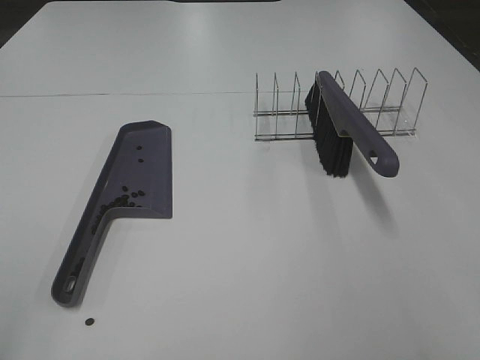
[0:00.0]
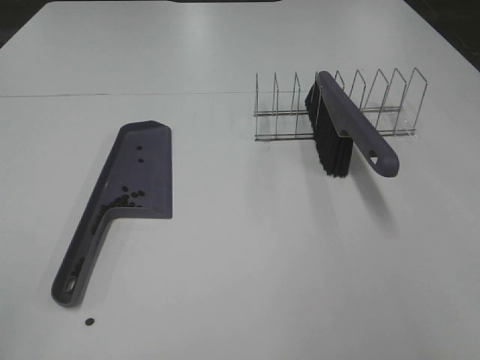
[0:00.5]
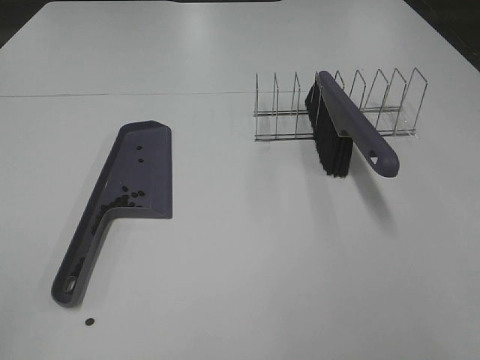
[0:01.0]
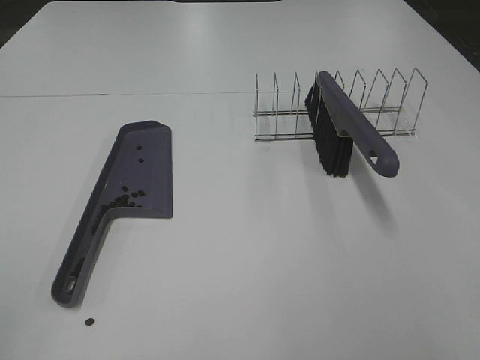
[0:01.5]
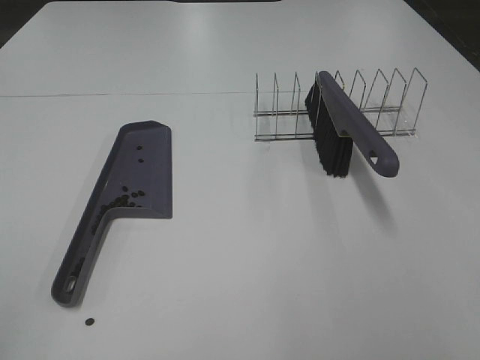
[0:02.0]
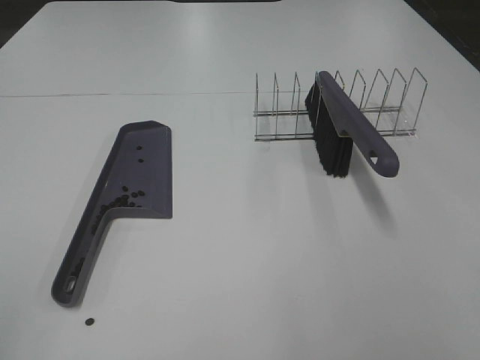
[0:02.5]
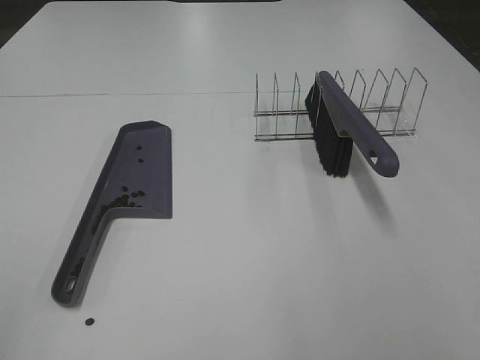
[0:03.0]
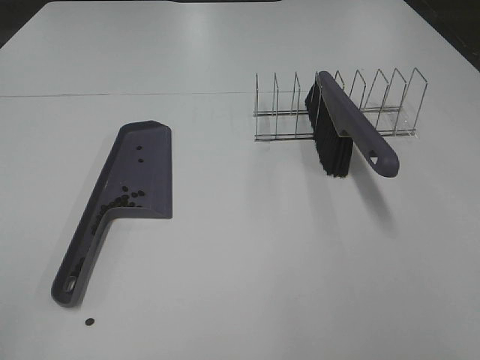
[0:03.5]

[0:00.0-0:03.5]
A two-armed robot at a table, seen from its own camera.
Task of the whole recording: Sweep Coffee Bean.
0:02.0 to 0:03.5: Both grippers stay about where they are.

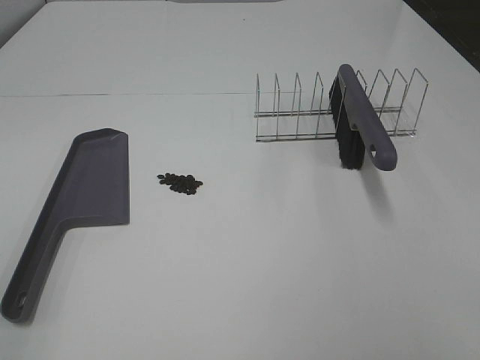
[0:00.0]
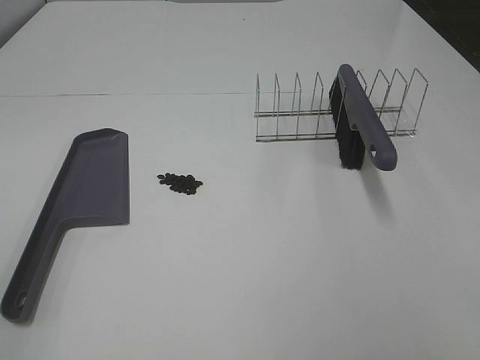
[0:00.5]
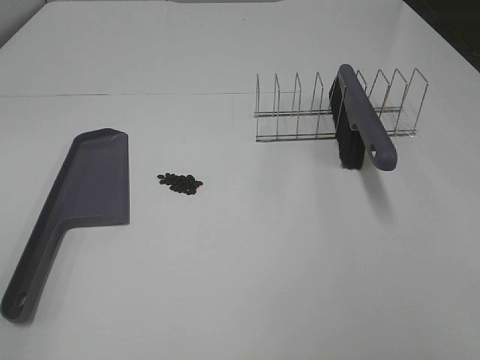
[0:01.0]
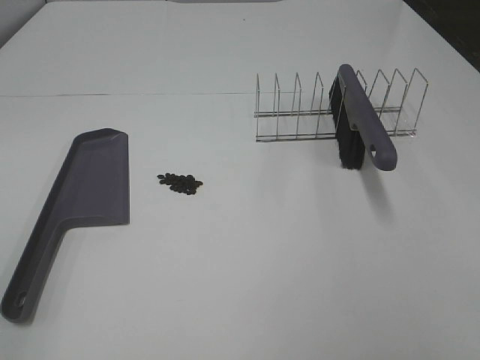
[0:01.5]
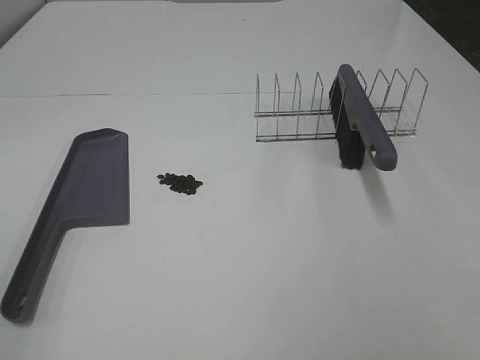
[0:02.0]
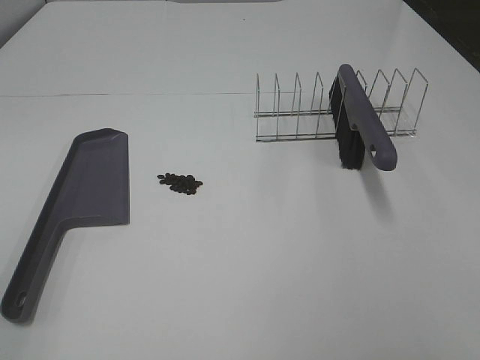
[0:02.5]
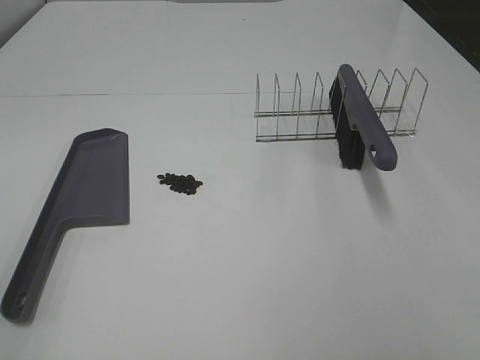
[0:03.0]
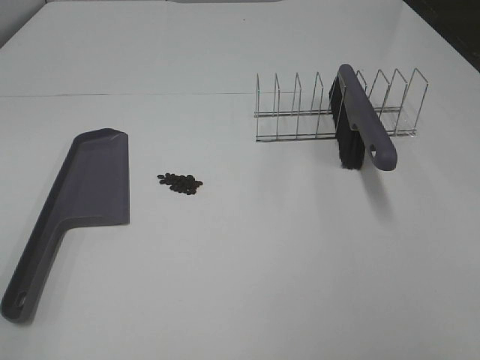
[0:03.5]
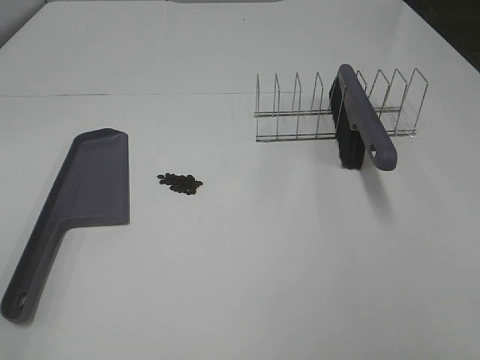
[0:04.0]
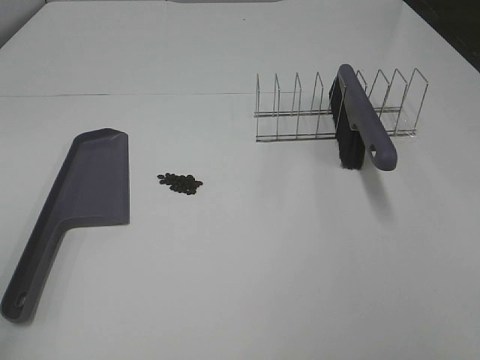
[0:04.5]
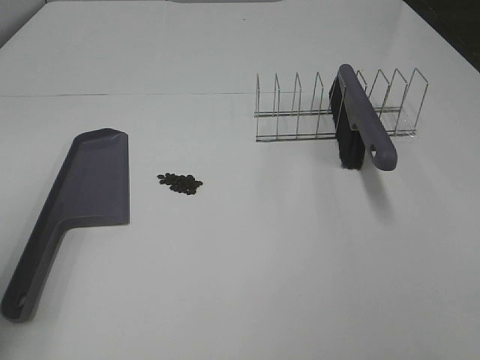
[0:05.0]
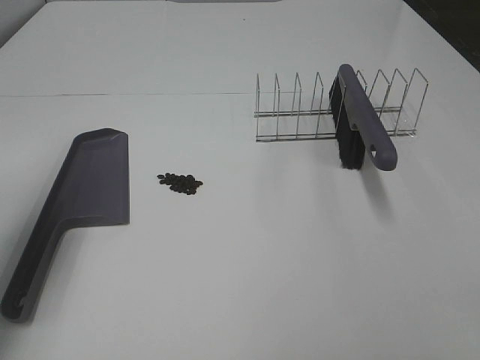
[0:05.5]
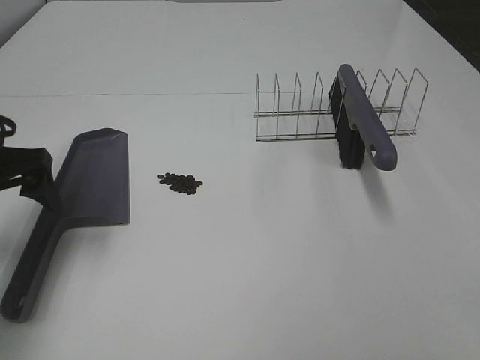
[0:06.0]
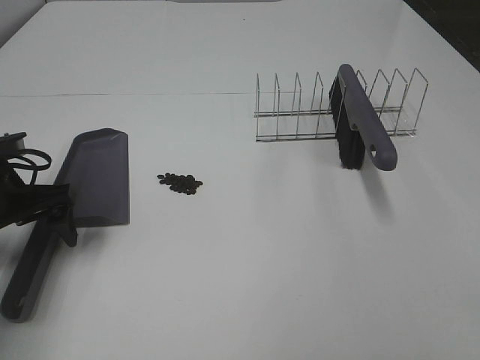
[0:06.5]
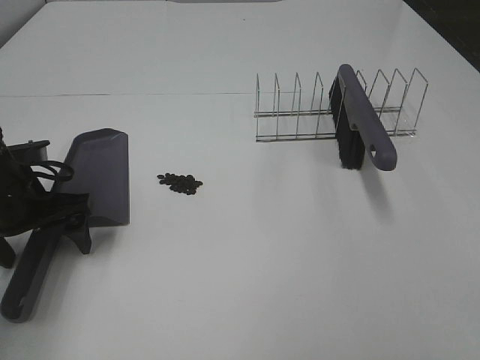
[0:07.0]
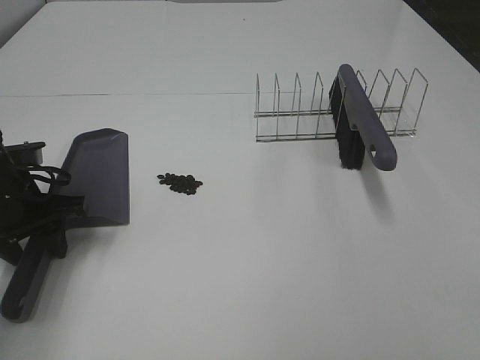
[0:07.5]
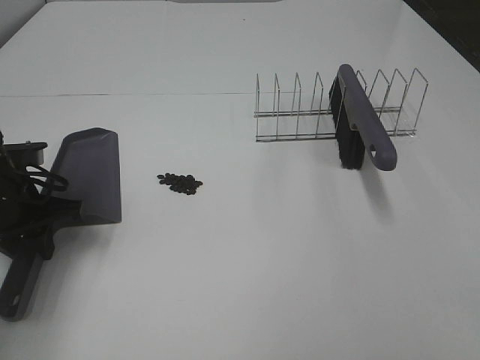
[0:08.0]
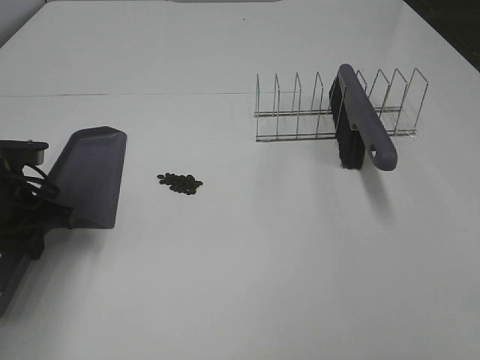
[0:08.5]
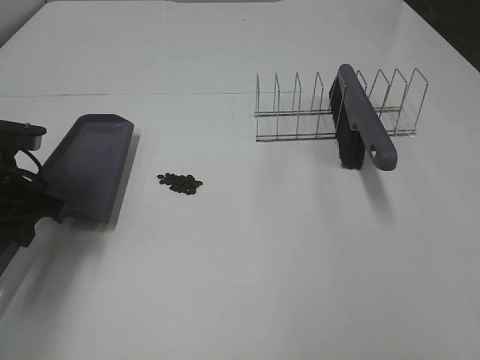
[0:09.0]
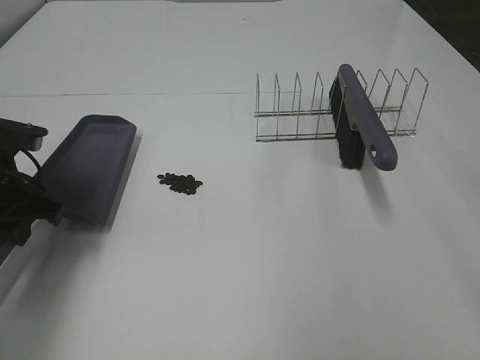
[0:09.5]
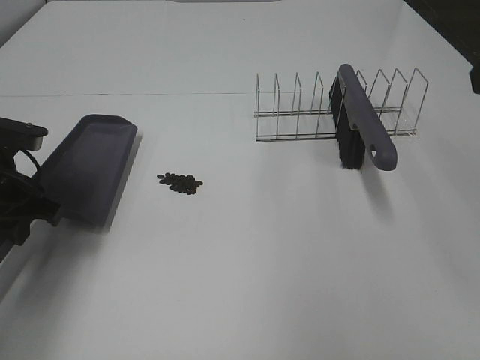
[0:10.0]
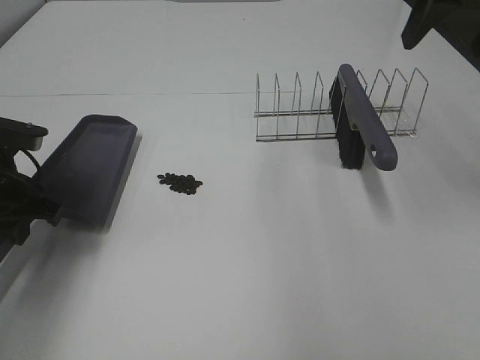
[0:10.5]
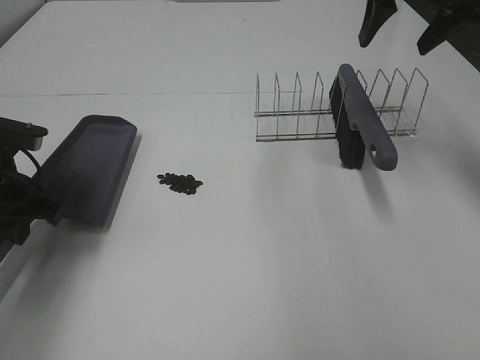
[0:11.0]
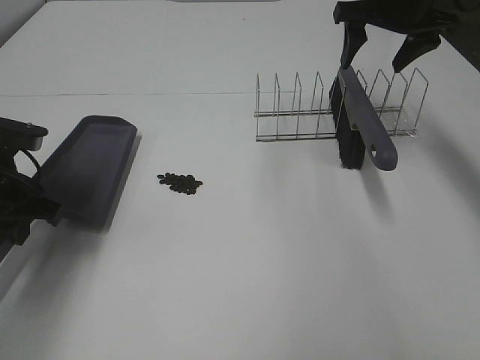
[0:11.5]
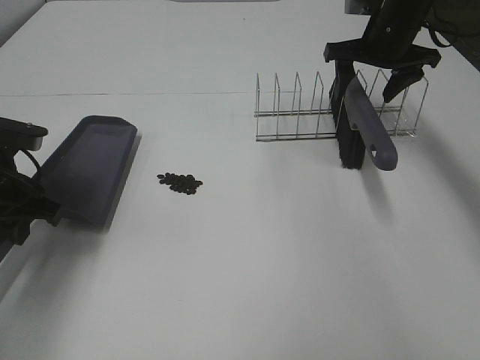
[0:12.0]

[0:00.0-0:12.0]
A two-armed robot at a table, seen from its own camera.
Task of the whole recording: Sweep Coffee Bean.
Step, 0:00.0 to 0:07.5: Left hand: grab the dustpan.
0:00.0 to 0:04.0: Neither gripper changes place.
0:04.0 to 0:06.0: The left gripper shifts about 30 cm forward.
0:06.0 to 0:08.0: The left gripper goes roughly 10 cm downward, and closes.
0:10.0 to 0:12.0: The right gripper shifts about 35 cm forward and downward.

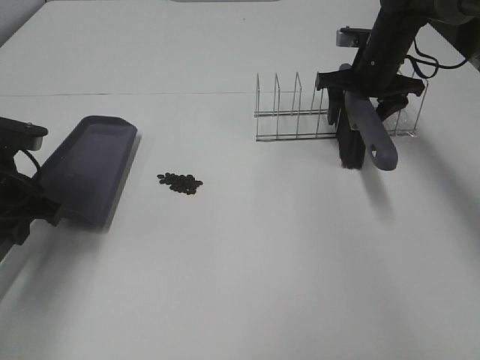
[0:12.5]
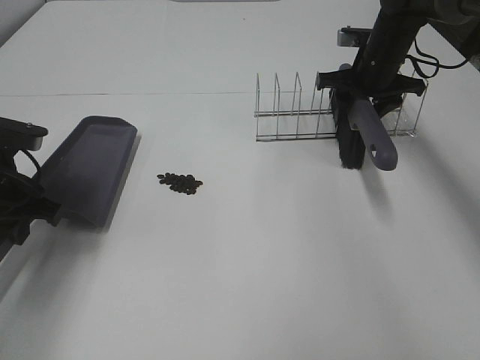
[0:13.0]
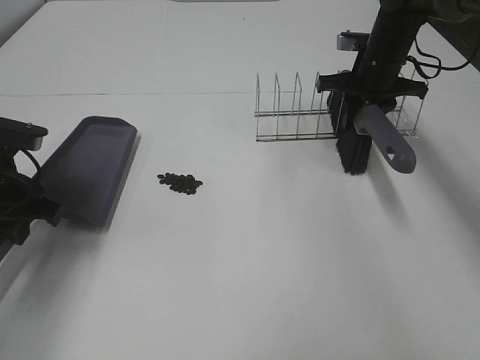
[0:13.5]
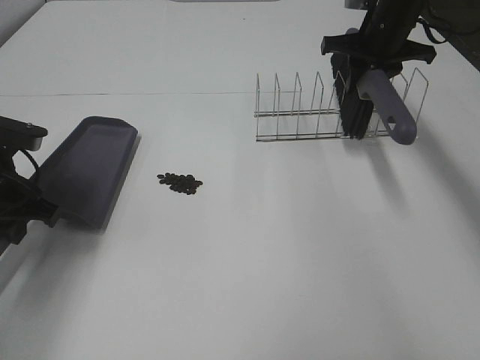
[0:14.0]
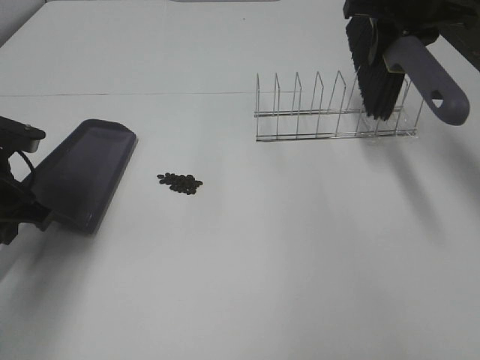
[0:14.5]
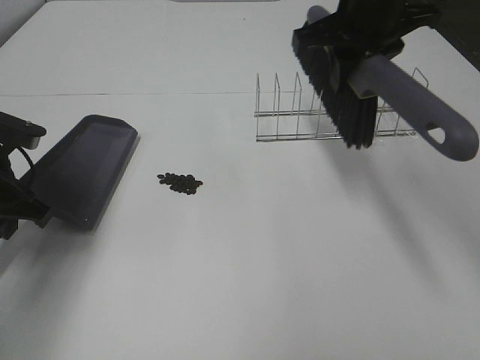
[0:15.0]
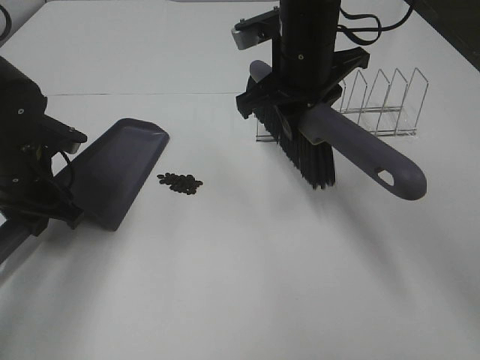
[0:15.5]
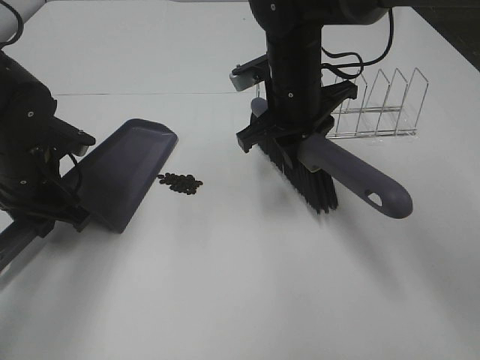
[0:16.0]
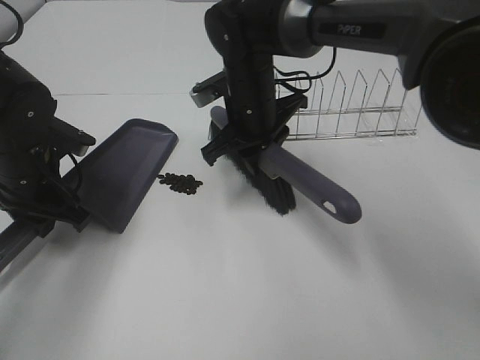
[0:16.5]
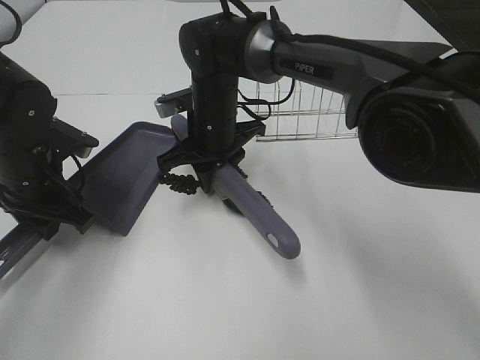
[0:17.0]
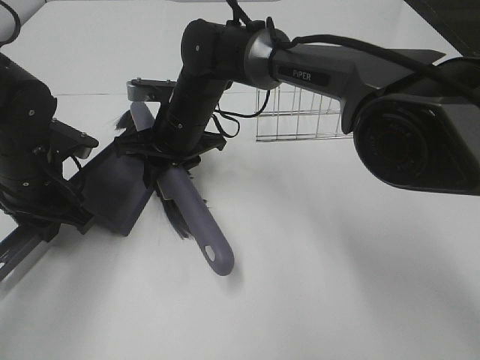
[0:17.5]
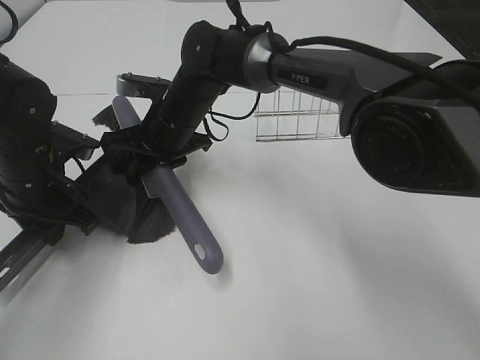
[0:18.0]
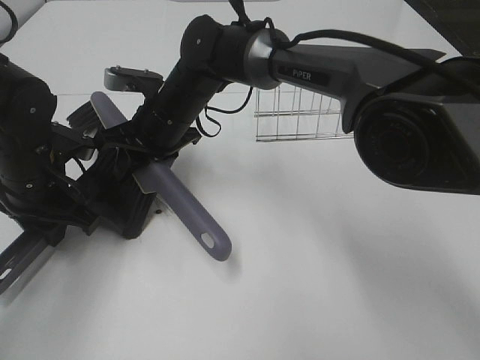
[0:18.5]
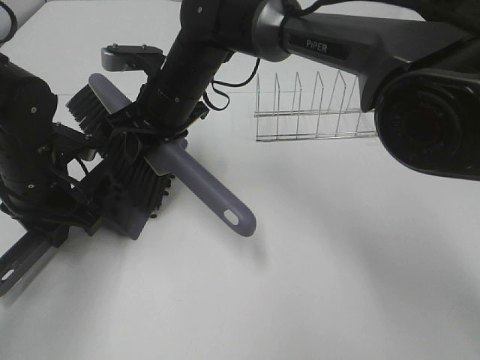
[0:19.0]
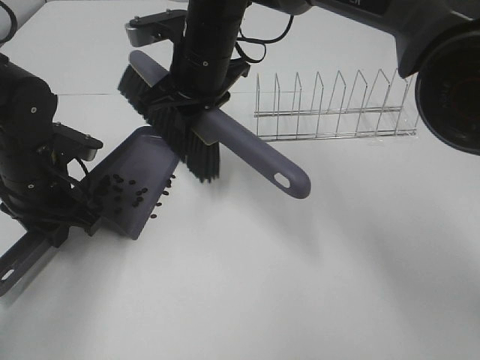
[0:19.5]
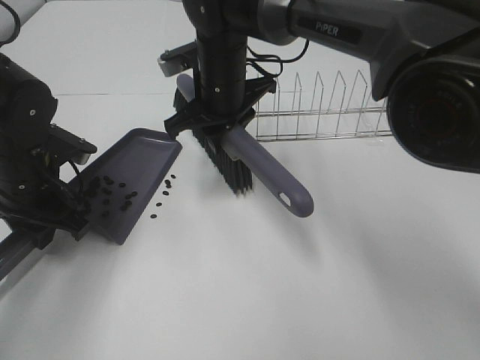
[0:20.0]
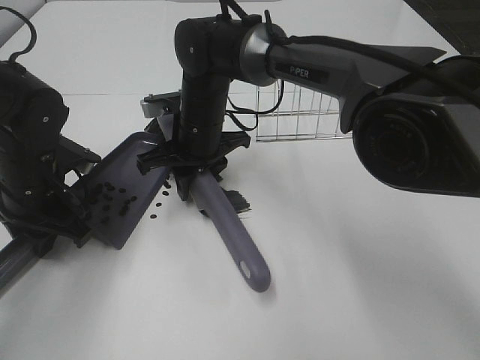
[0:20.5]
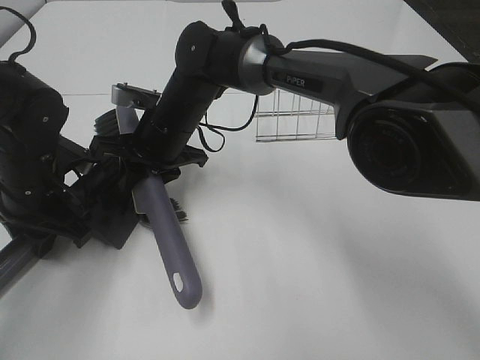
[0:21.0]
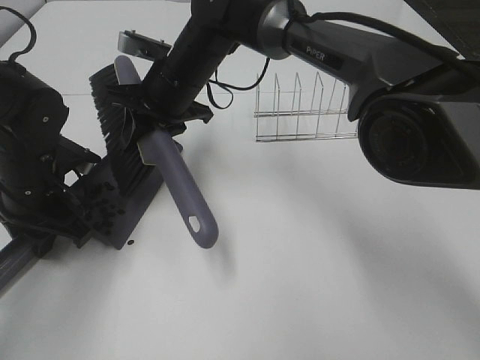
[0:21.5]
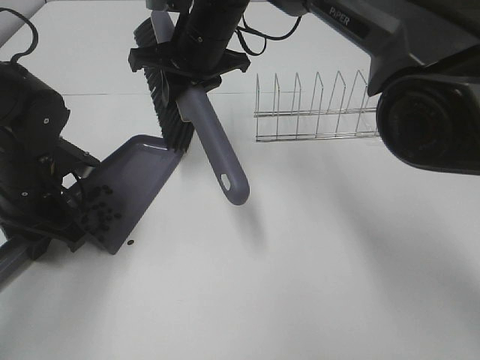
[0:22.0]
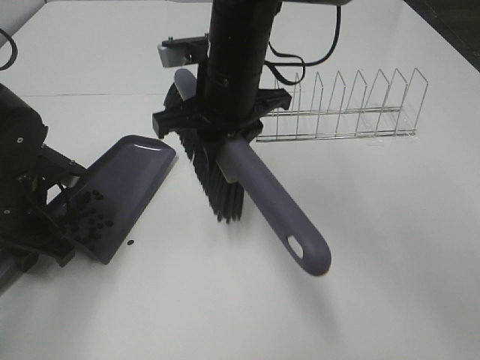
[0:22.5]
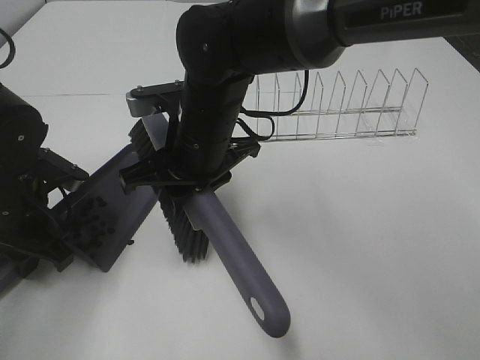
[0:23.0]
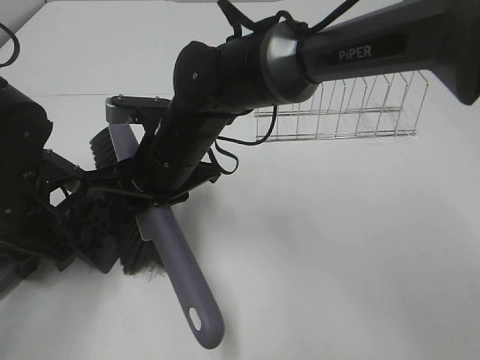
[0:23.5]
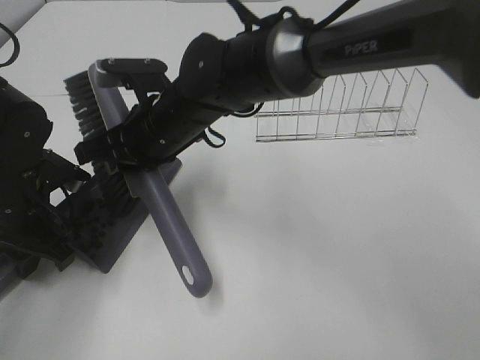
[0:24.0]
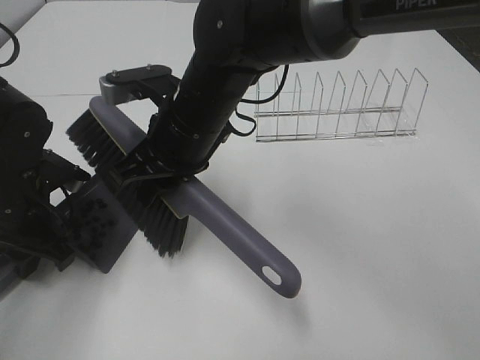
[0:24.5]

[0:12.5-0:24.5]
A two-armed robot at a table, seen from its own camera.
Task of the whole recording: Sweep Coffee Bean.
0:12.5 to 0:14.5: The right gripper moves upward, some 15 cm, and closes its fingers.
0:14.5 to 0:16.5: The left gripper shifts by roughly 5 cm; the right gripper moves to the left and downward, roughly 25 cm.
0:16.5 to 0:18.5: The right gripper goes roughly 10 cm to the left.
0:18.5 to 0:20.5: The right gripper reaches some 10 cm upward, then returns.
0:20.5 to 0:22.5: The right gripper goes approximately 10 cm upward and backward.
